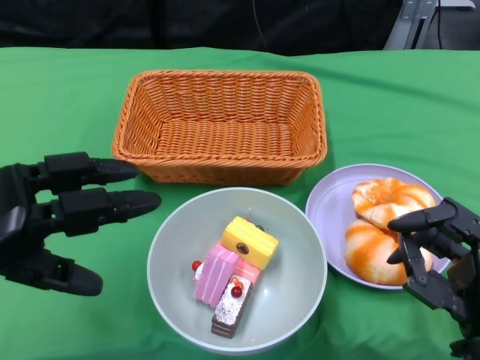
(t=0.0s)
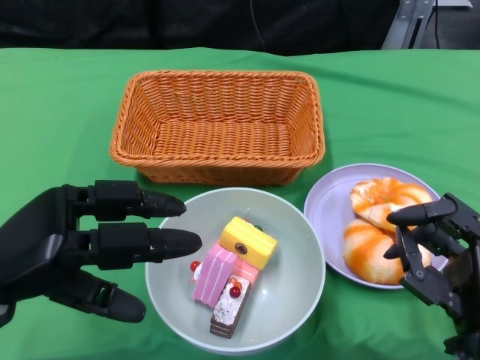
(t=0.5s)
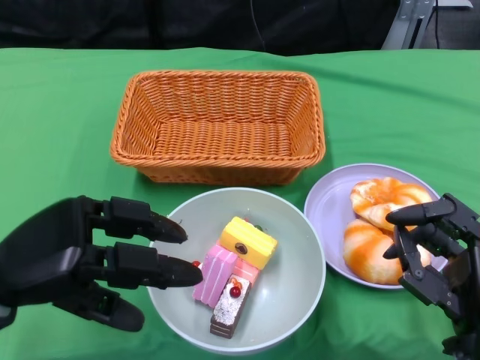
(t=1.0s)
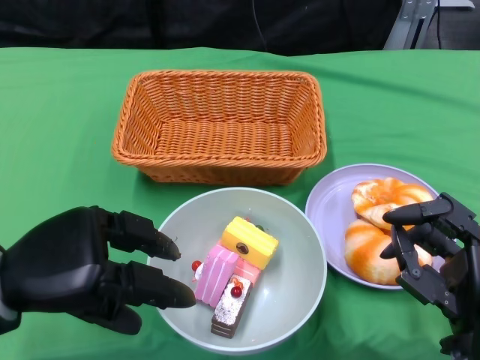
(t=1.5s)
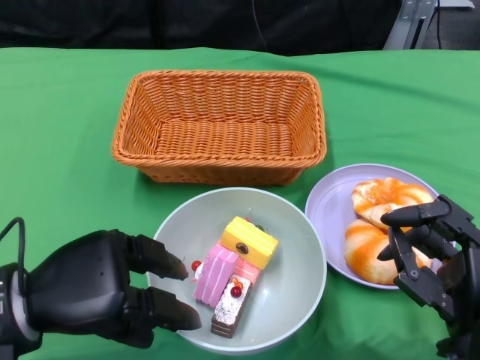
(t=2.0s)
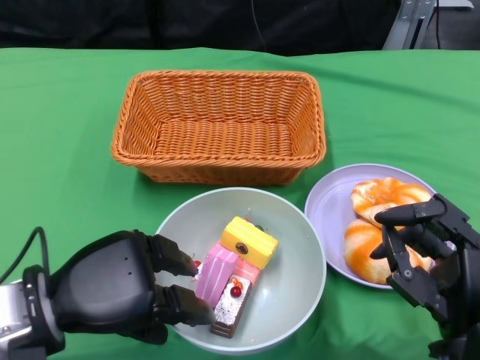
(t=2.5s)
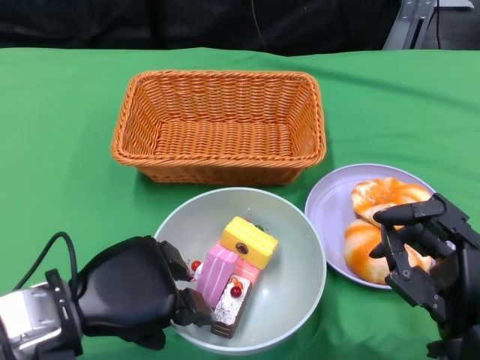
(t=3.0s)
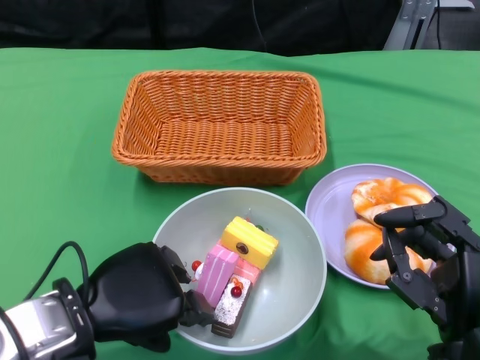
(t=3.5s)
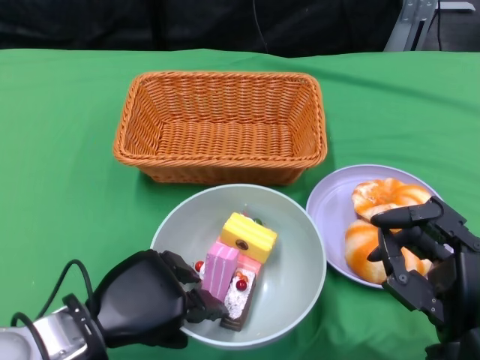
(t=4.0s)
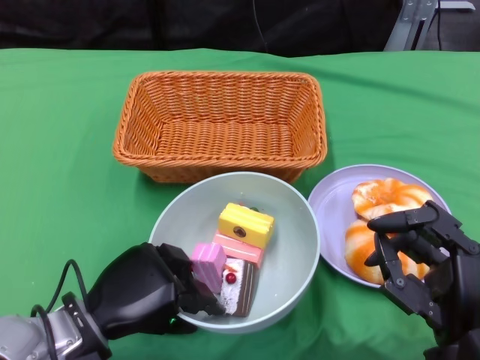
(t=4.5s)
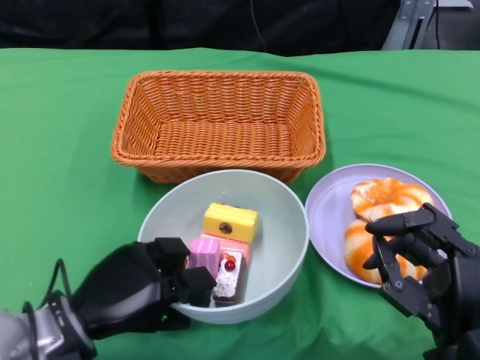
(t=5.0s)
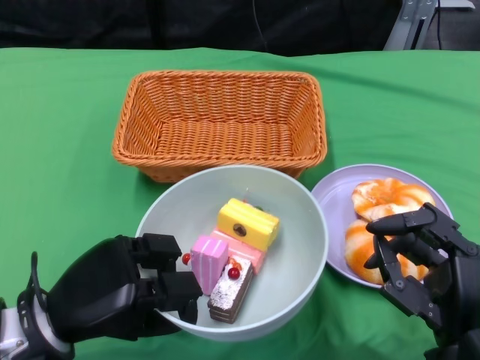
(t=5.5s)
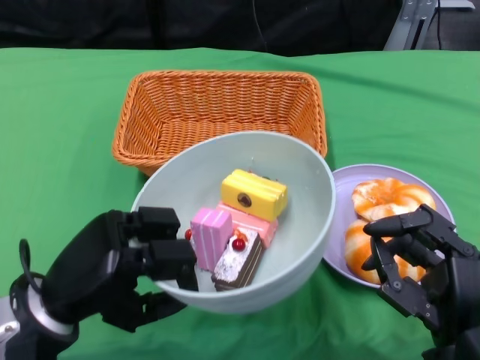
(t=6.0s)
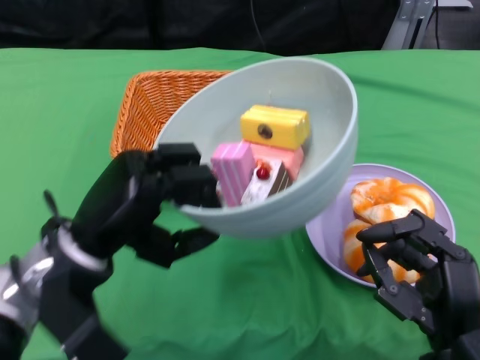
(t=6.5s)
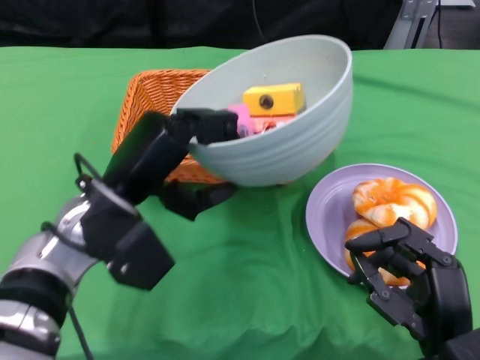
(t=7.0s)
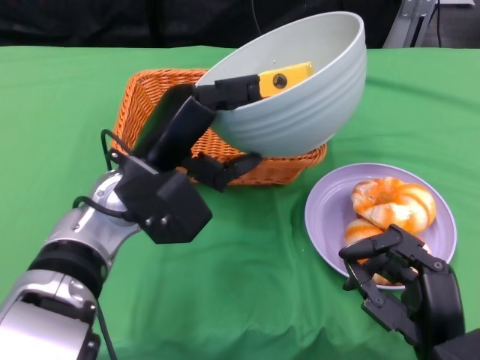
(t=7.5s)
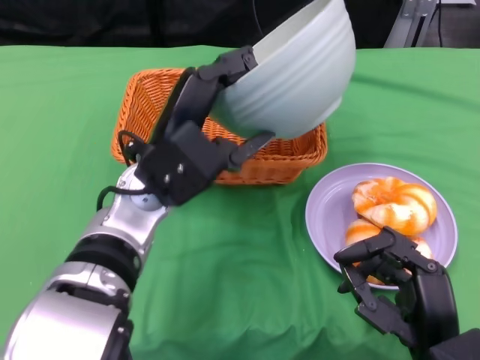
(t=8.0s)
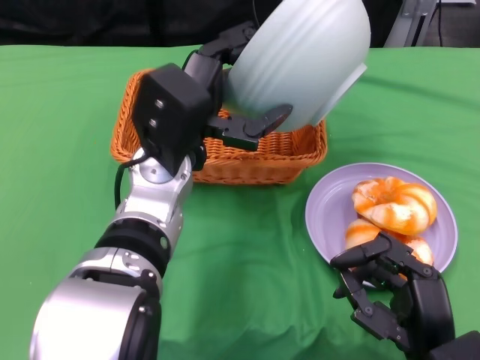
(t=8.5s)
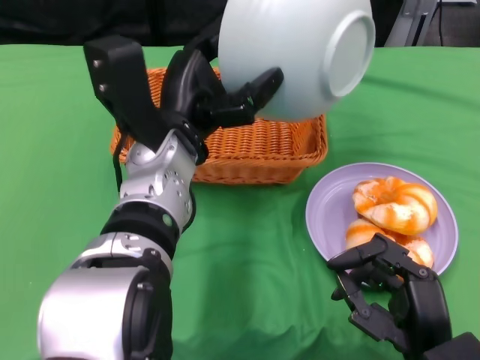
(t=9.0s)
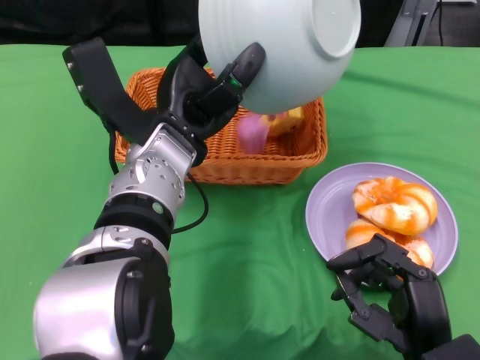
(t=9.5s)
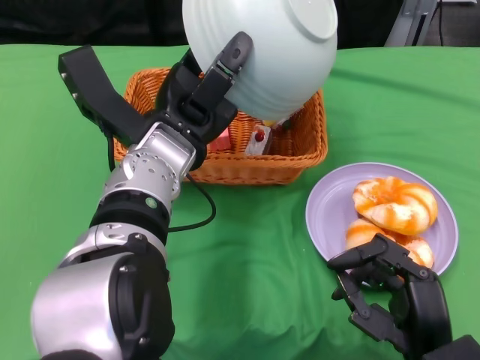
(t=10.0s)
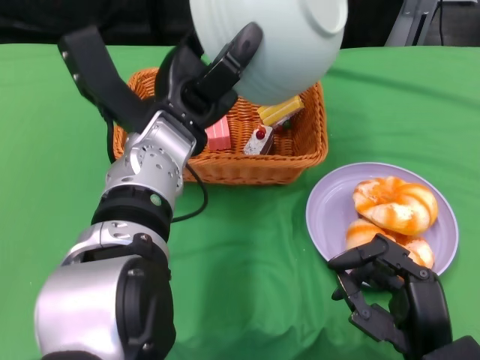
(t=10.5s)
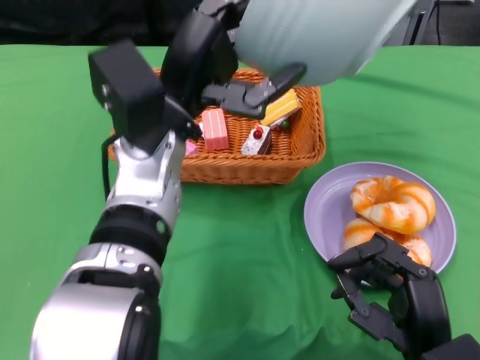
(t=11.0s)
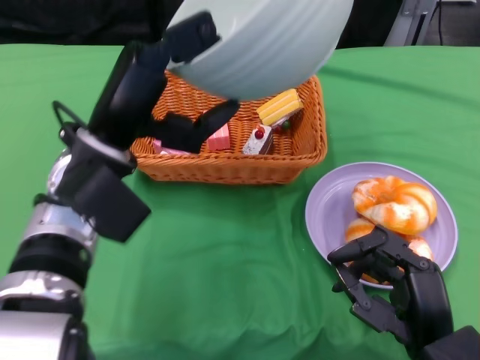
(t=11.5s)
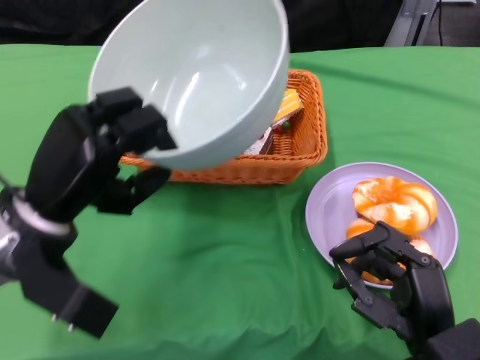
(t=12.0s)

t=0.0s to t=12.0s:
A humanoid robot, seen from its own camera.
Step, t=0.0s to t=4.0s: Grasp the bowl with the left gripper.
Step, t=4.5s to t=10.5s: Pour the cake into the basket with the left gripper.
t=0.0s to t=2.0s: The left hand shifts some 5 cm to the right.
t=2.0s to t=4.0s: The left hand ends up approximately 5 cm from where it was.
t=6.0s to t=8.0s: The left hand moves to the right, forward and upward, roughly 15 cm.
t=10.0s to t=12.0s: The left hand travels to the left and backward by about 15 cm.

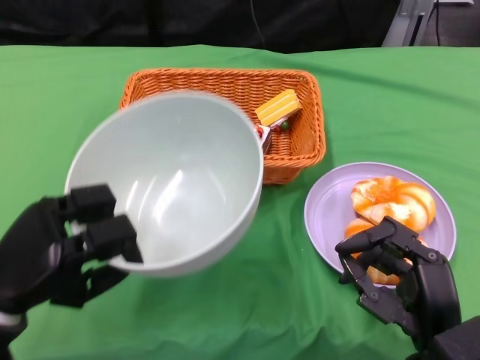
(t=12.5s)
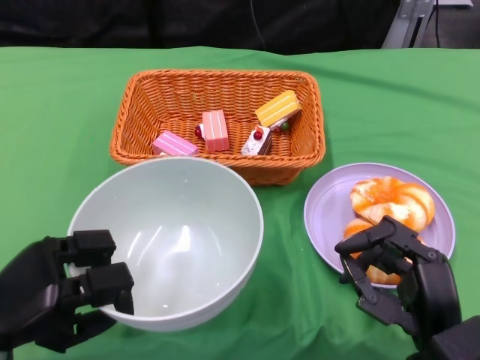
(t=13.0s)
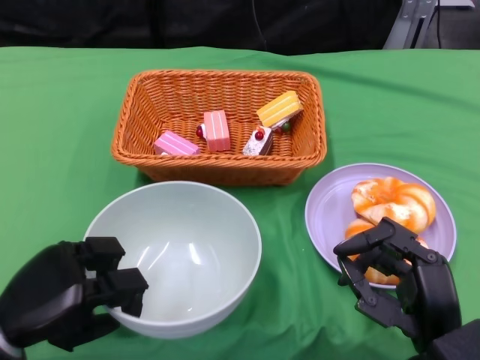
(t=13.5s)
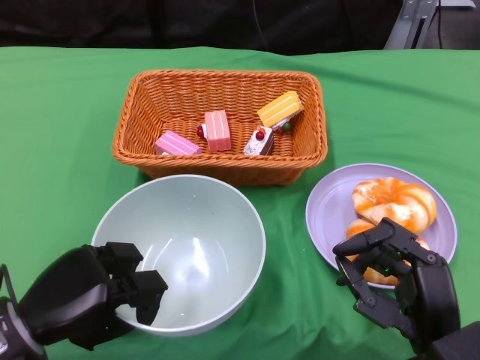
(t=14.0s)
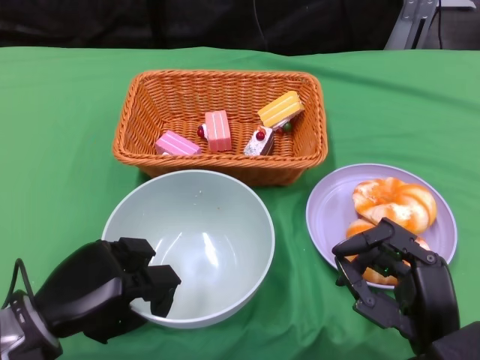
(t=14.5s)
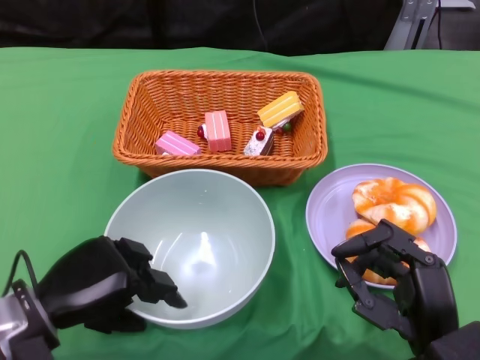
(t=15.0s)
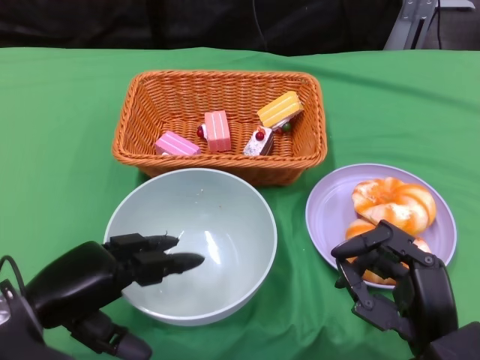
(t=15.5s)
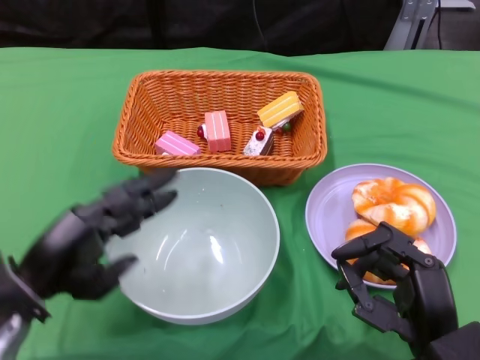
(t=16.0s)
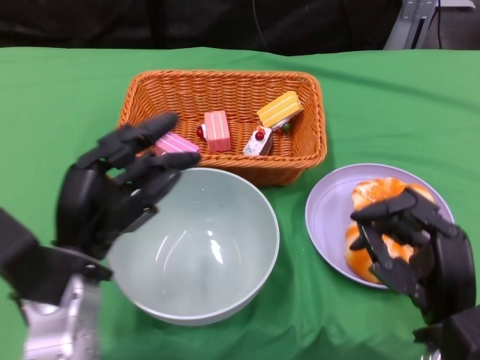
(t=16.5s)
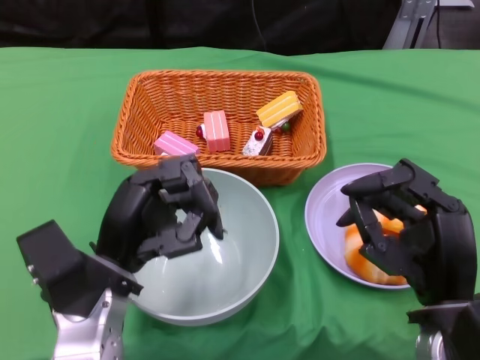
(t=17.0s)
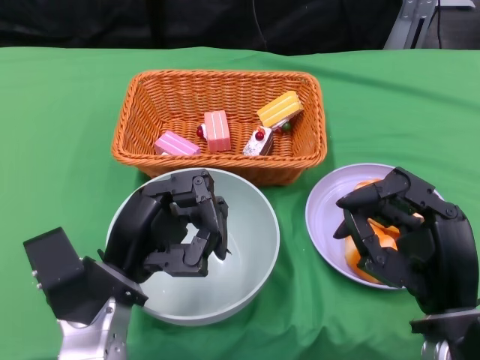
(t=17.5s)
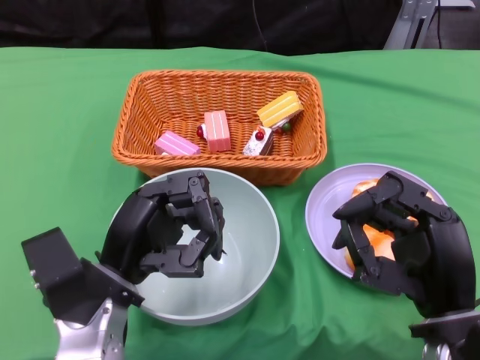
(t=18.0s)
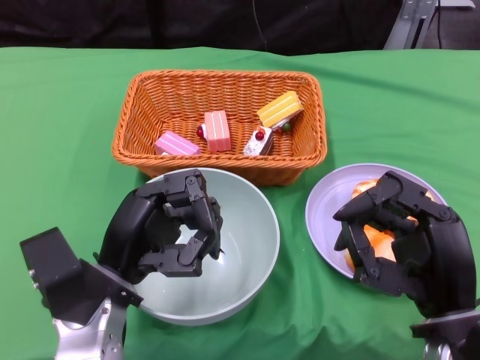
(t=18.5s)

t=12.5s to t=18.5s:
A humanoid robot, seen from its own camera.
Step, t=12.5s to t=15.5s: Place the bowl on the table with the left gripper.
t=14.5s to t=16.5s: The left hand shifts approximately 5 cm upward.

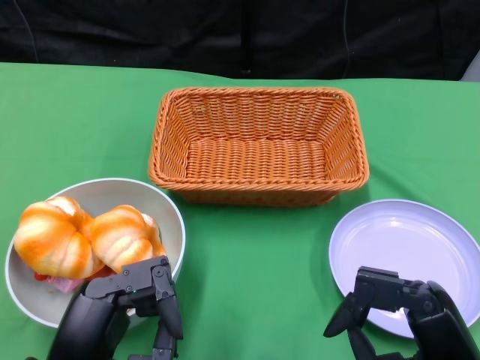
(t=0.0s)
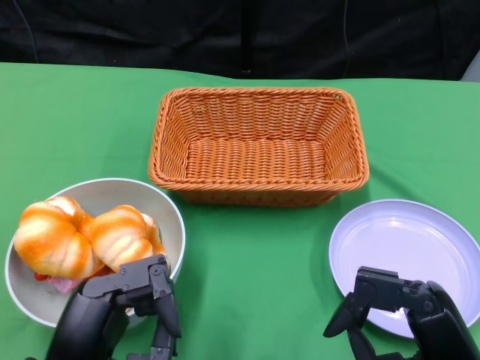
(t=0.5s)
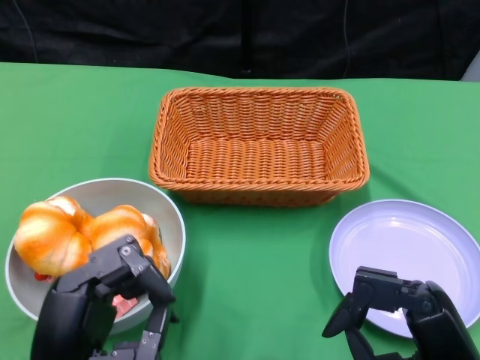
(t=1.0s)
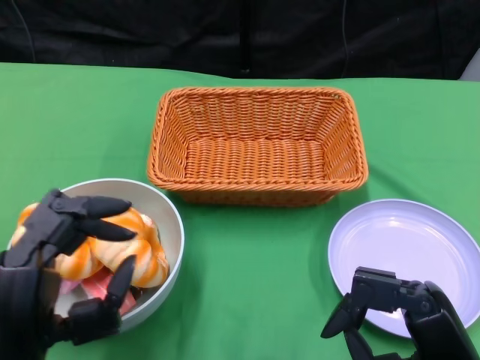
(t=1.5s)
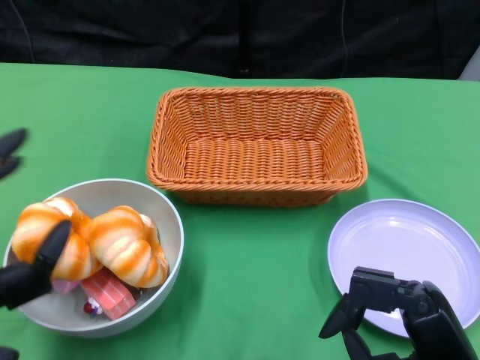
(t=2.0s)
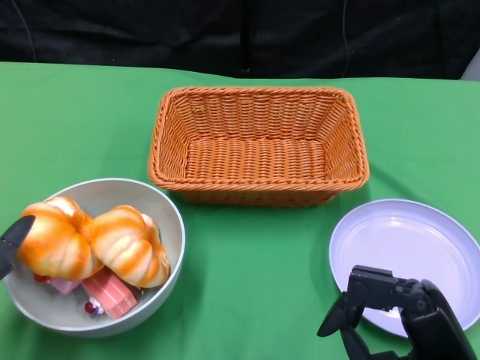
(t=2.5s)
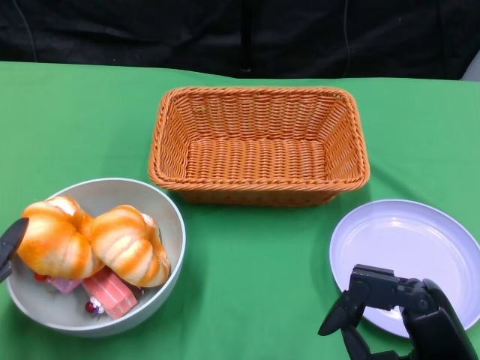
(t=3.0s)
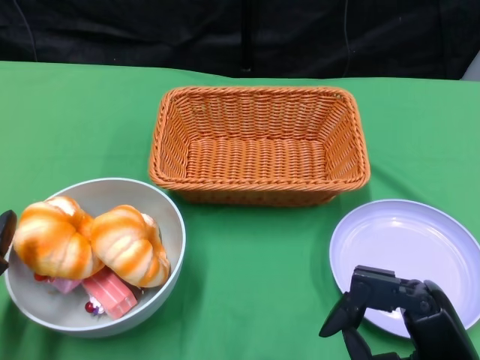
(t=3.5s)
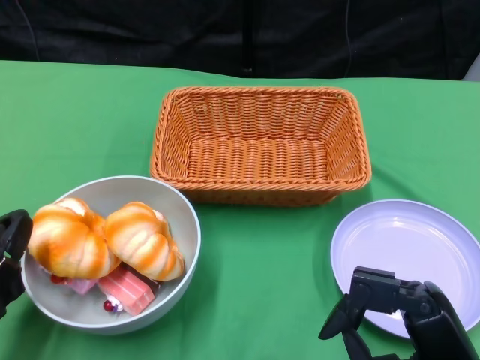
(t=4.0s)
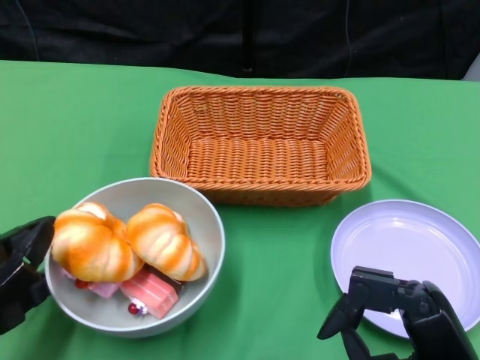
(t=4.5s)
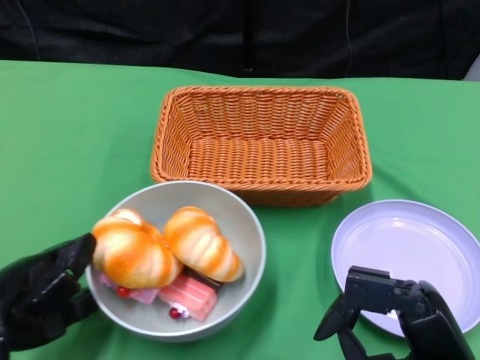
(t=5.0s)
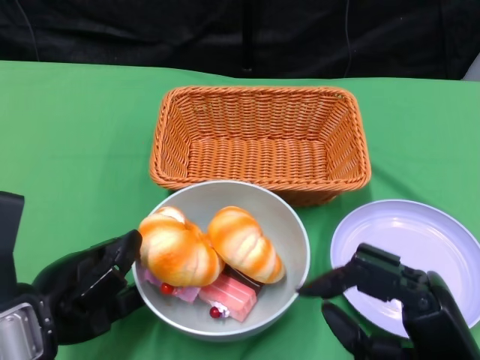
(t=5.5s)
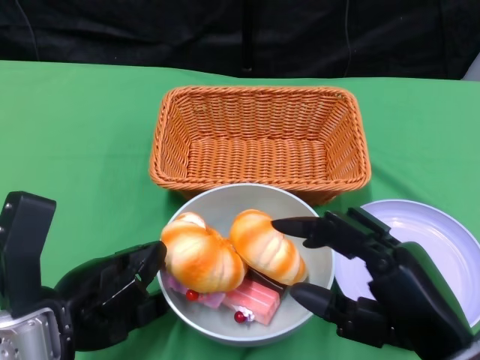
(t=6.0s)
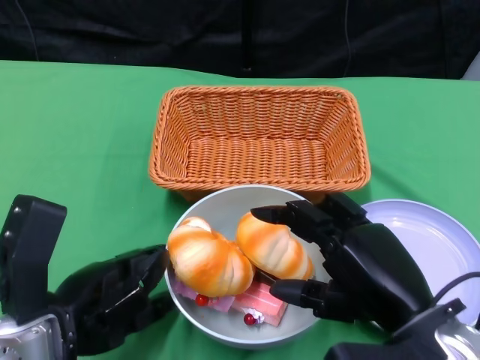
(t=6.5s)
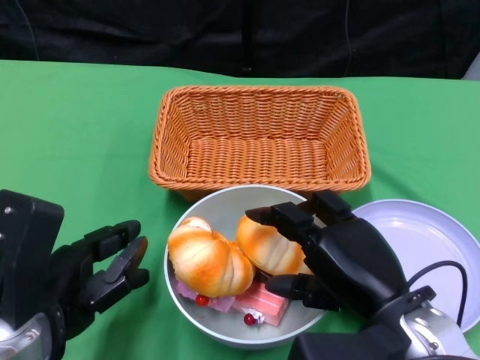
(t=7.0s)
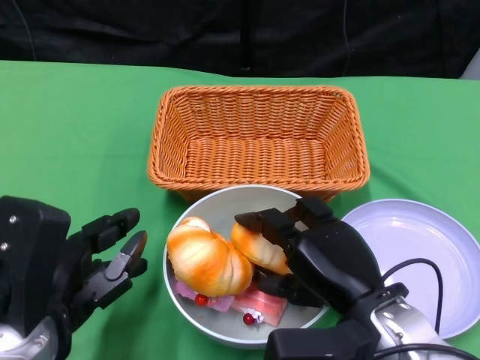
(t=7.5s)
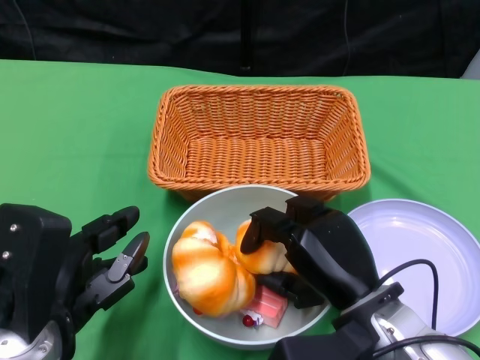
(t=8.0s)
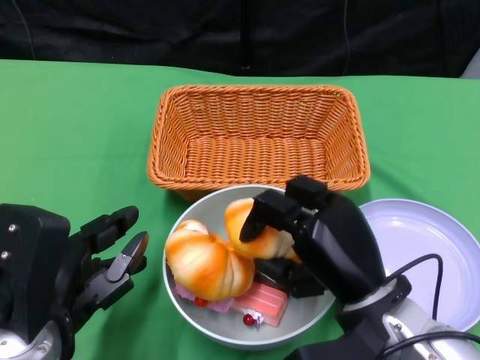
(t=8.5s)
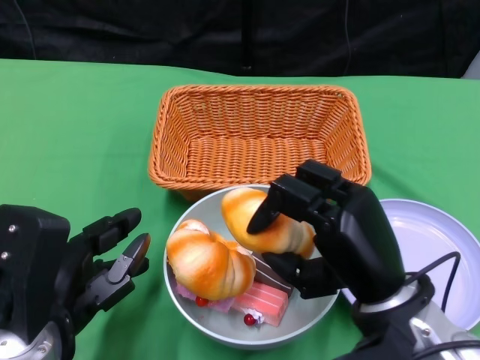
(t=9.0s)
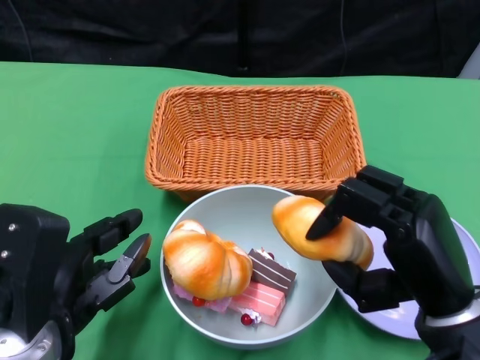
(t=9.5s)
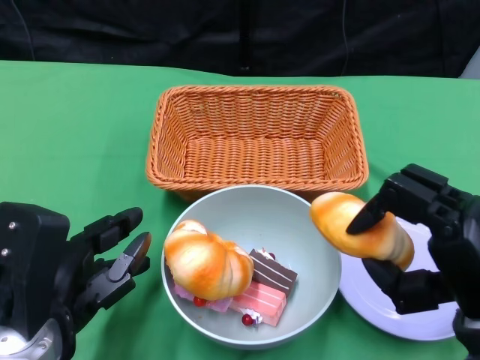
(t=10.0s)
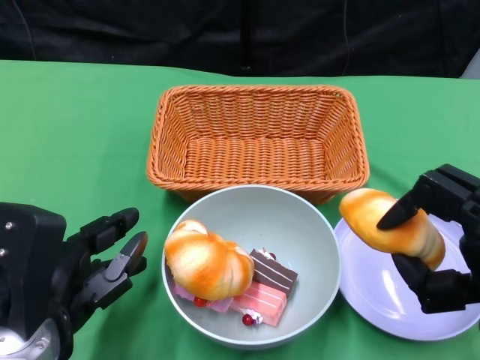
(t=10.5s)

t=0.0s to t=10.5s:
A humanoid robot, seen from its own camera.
Step, t=0.0s to t=6.0s: Push the bowl to the center of the table using the left gripper.
t=2.0s to t=4.0s: The left hand heads to the left, covering some 5 cm.
t=4.0s to t=6.5s: The left hand is displaced to the right by roughly 10 cm, while the right hand is displaced upward by roughly 5 cm.
t=6.5s to t=8.5s: The right hand ends up some 10 cm from where it was.
t=8.5s to t=10.5s: The right hand travels to the right by roughly 10 cm.
